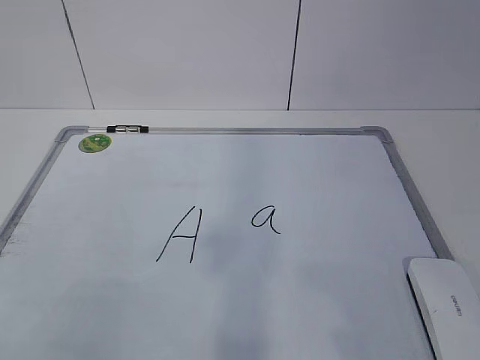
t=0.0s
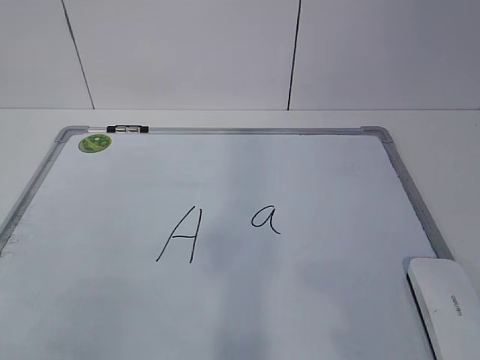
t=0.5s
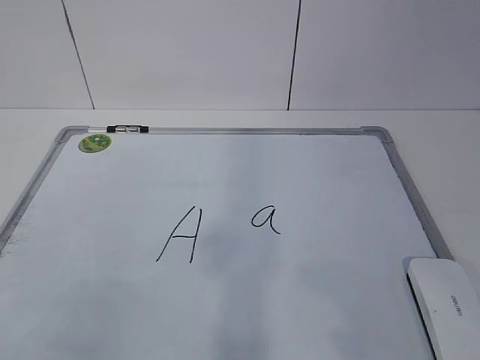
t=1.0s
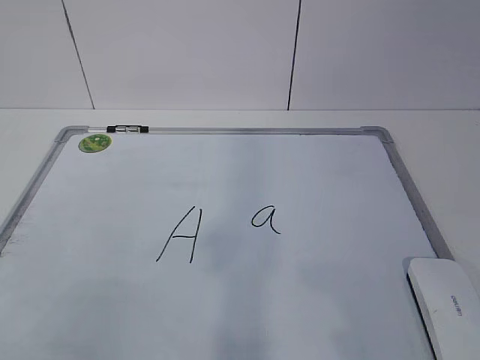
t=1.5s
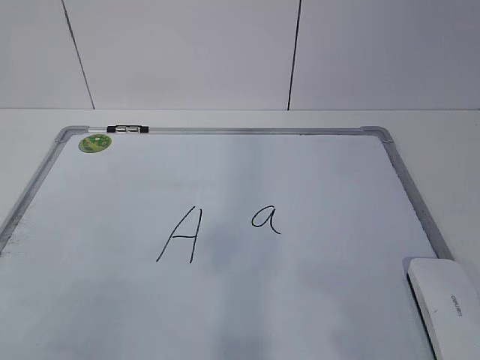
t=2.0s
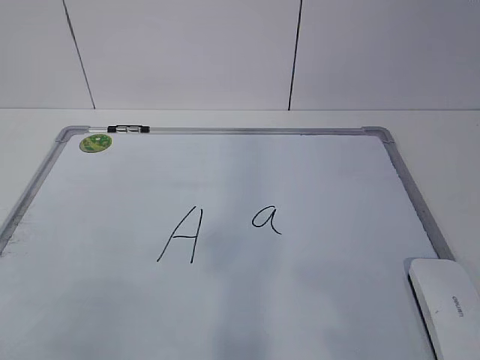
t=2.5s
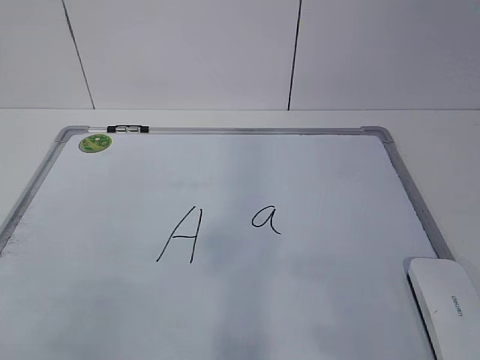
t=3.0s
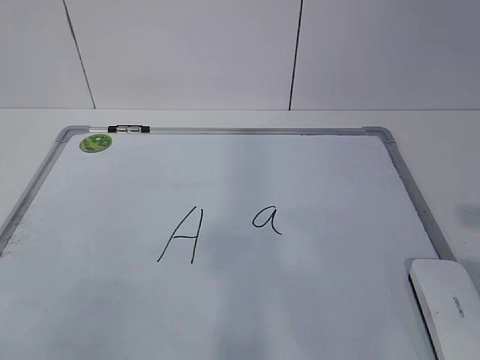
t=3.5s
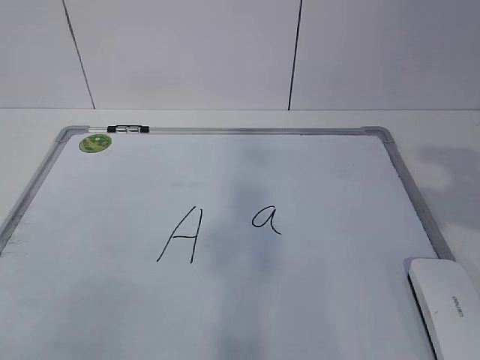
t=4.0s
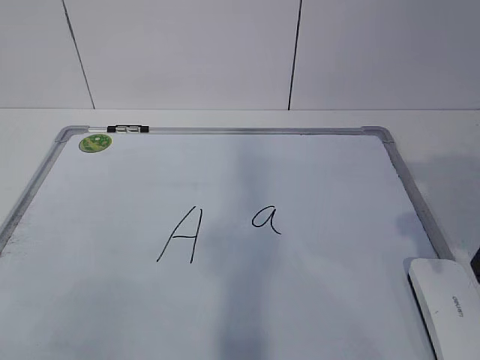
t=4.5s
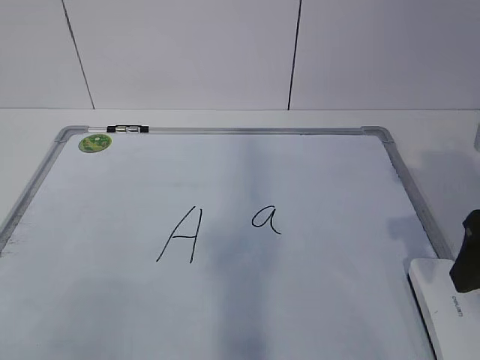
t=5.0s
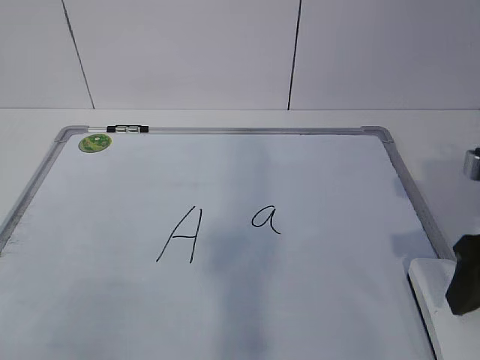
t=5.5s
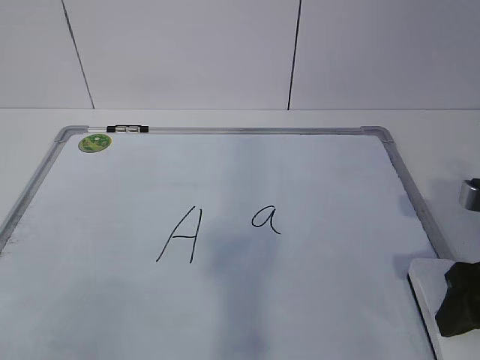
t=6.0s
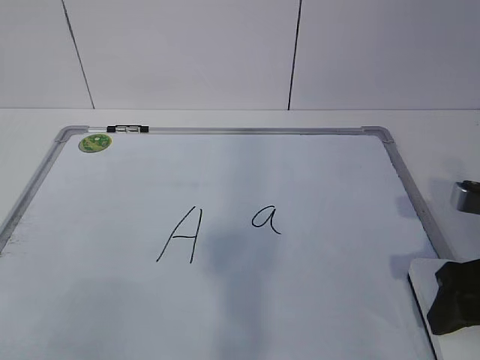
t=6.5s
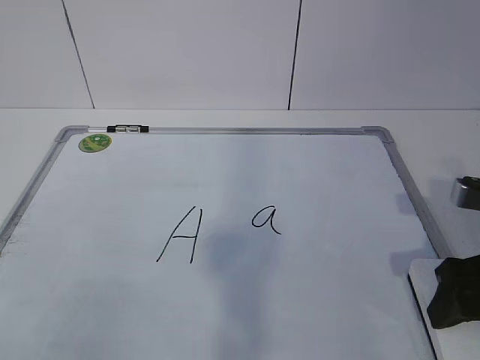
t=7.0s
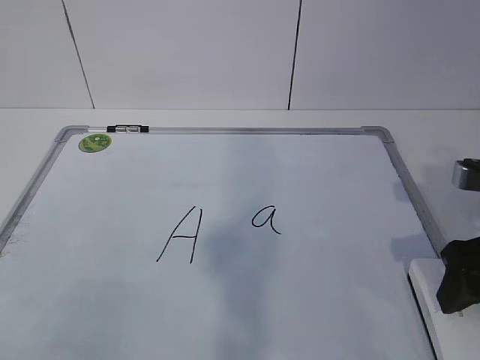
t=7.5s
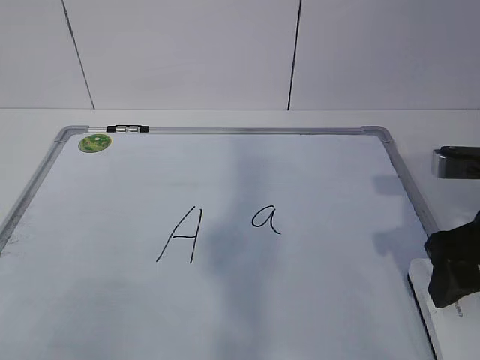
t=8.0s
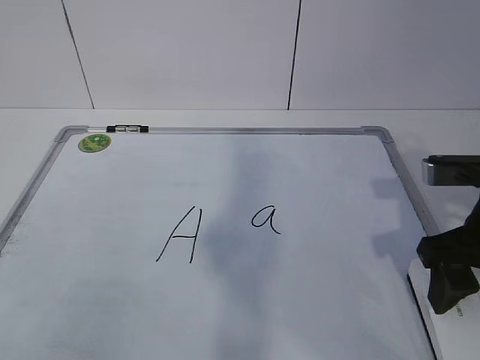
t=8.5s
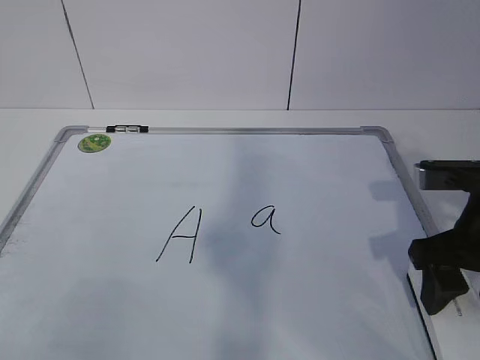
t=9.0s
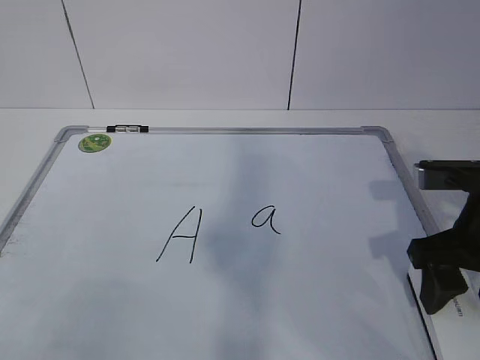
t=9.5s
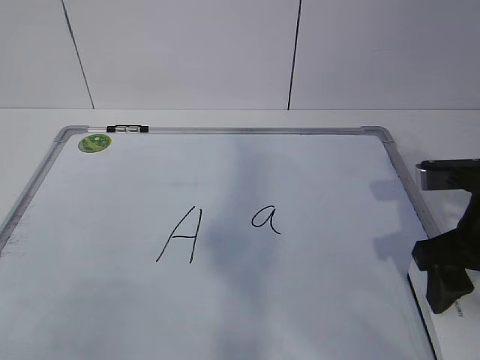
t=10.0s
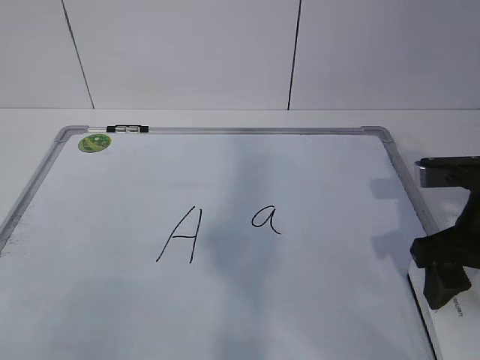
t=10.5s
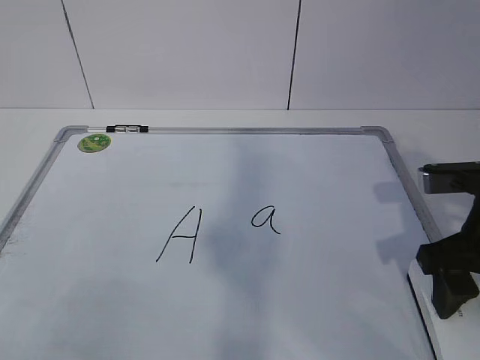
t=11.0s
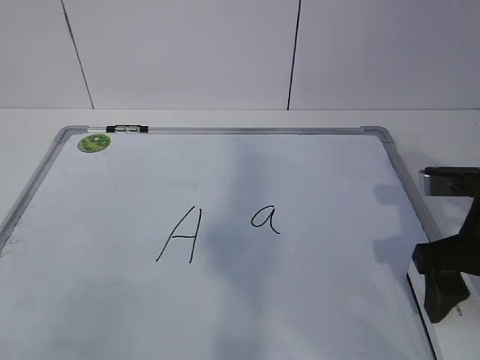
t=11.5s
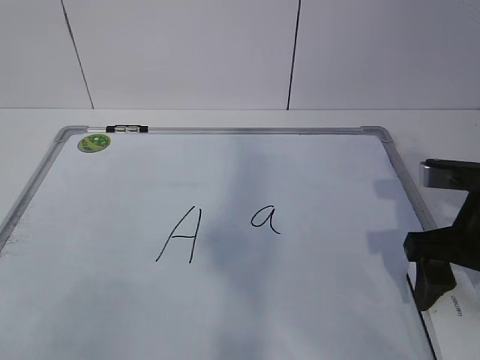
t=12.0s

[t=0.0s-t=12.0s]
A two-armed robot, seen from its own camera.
Task of the whole recording: pick up the eraser on the blackboard and erase the letter "a".
t=4.0s to t=6.0s: The right gripper shifts some 10 cm downward.
t=6.0s to t=10.0s: The grippers stay close to where they were, moving slightly.
t=10.0s to t=12.0s: The right gripper opens up.

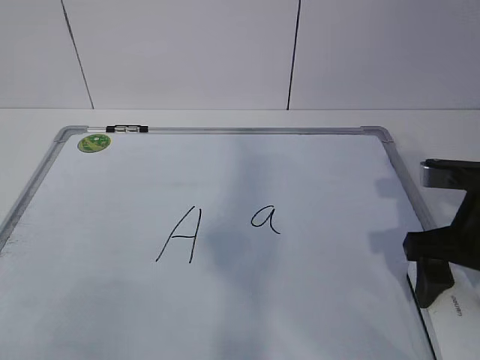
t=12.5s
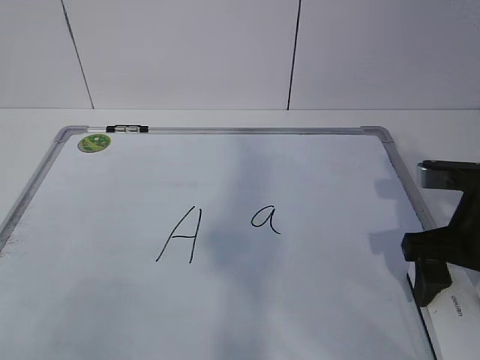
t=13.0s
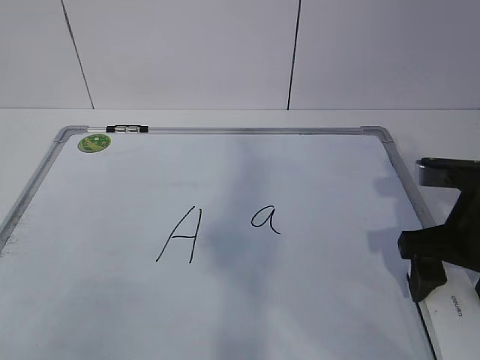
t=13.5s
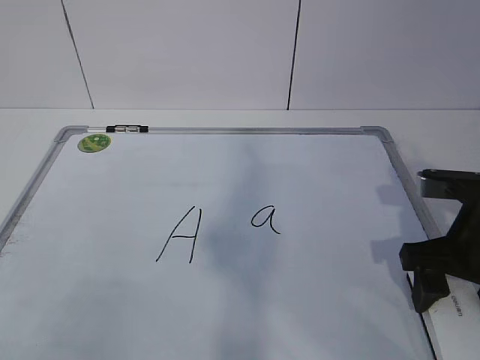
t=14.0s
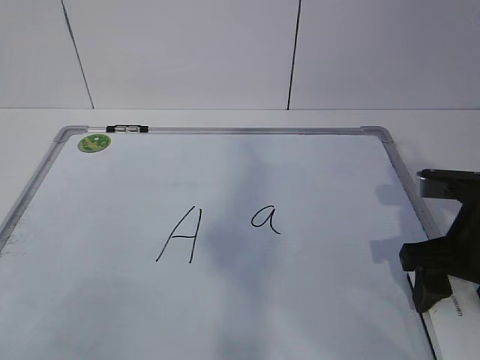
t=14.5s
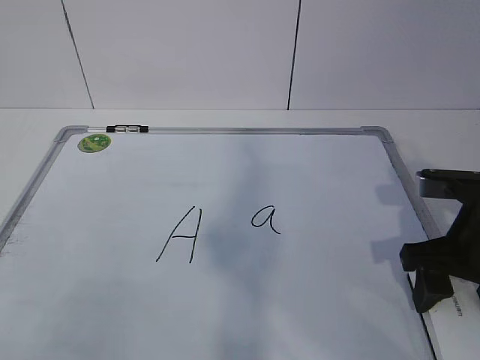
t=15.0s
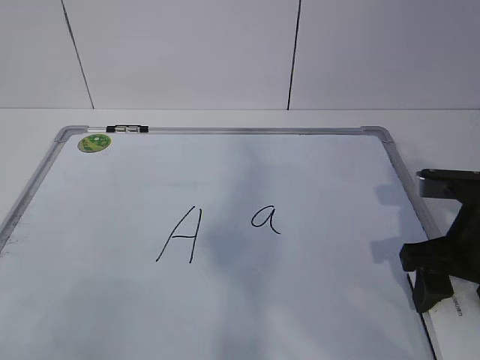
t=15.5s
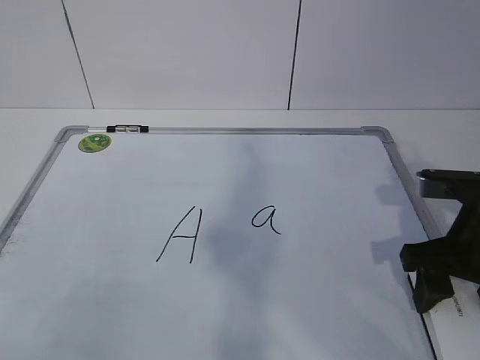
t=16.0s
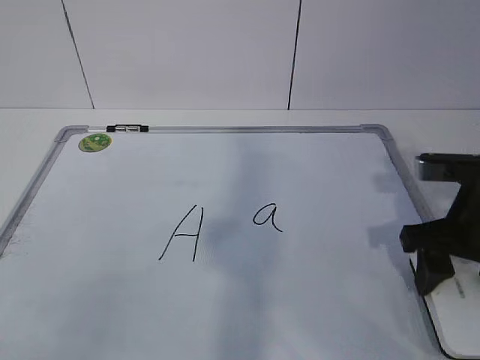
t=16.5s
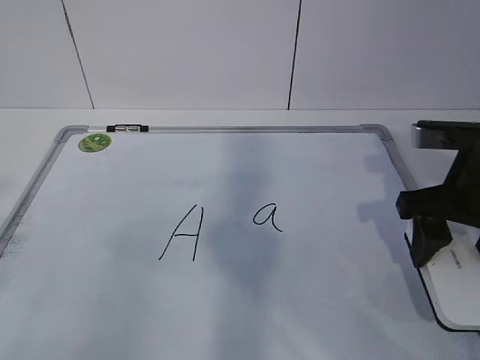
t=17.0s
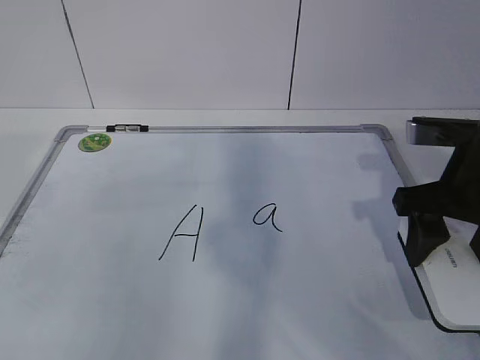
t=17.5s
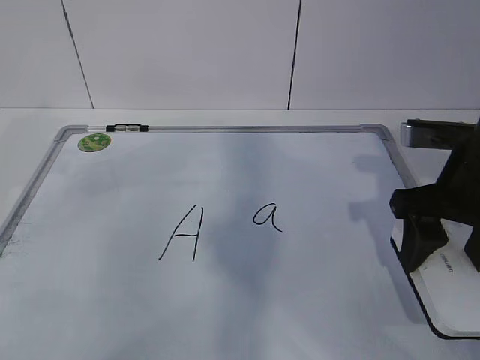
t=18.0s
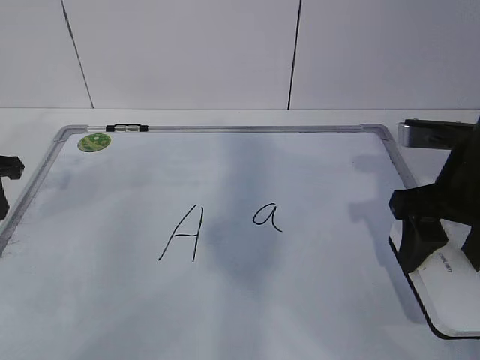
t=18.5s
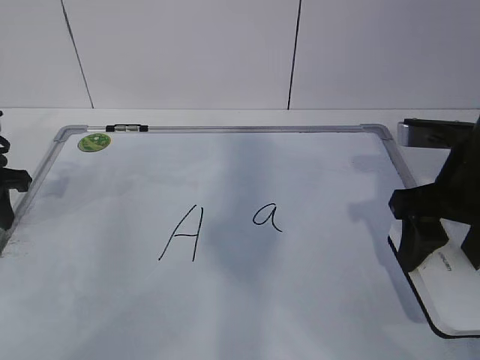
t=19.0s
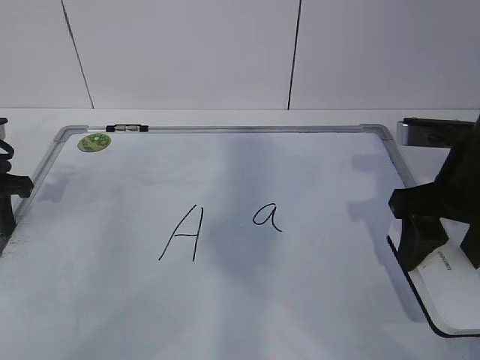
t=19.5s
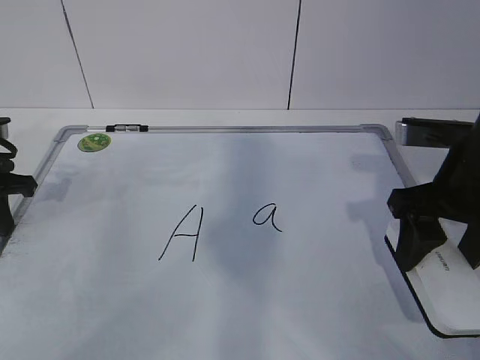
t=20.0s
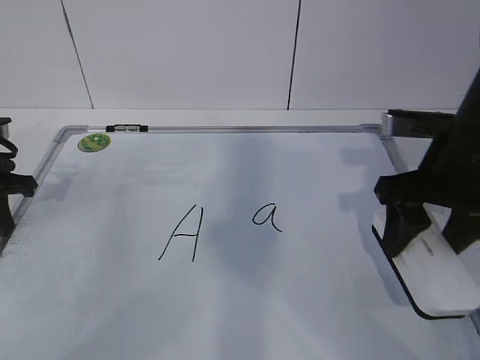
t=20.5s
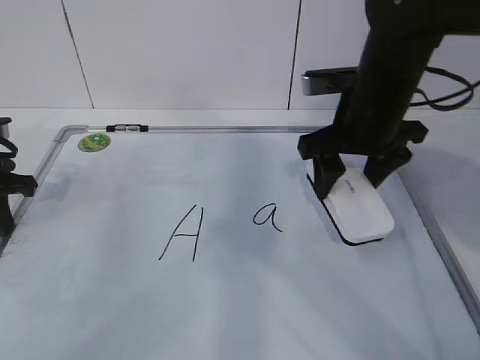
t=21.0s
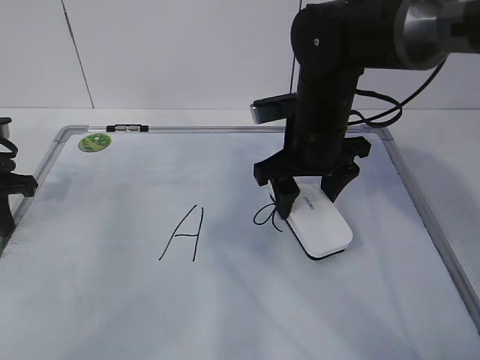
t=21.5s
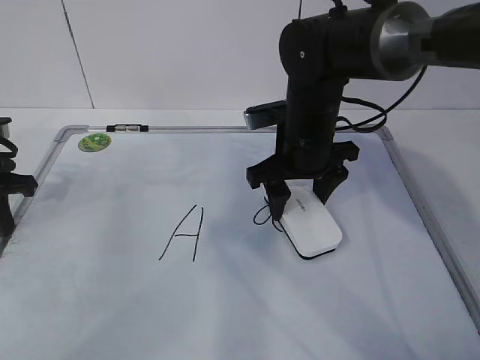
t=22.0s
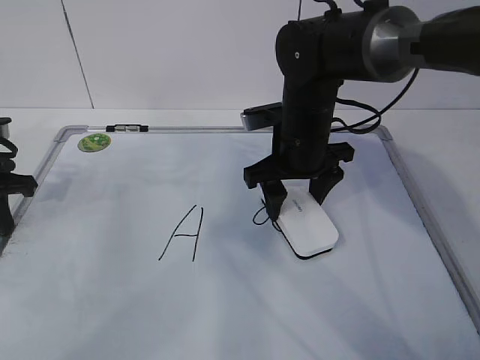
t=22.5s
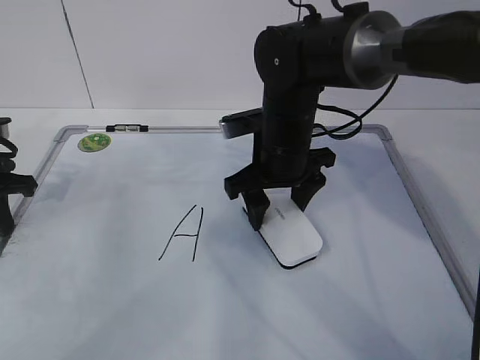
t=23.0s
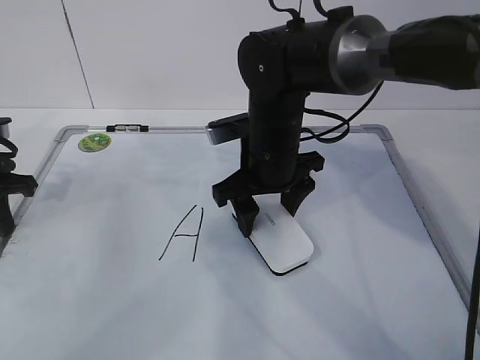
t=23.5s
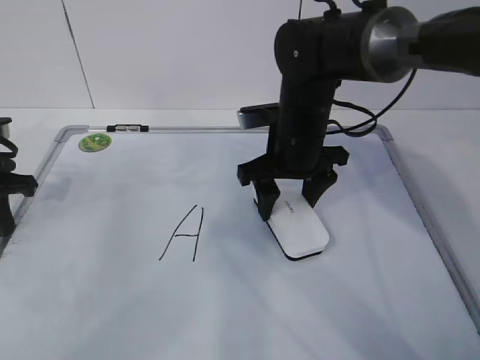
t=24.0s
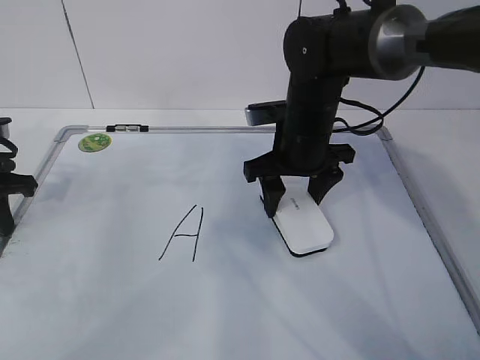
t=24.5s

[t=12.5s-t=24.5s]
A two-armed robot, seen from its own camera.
Task of the whole recording: pick up the eraser on the blackboard and erase the letter "a".
Step, t=14.0s to t=16.5s: Hold the drawing board steady with your left hand.
t=12.5s to t=14.5s: The right gripper closes up.
t=14.5s to t=16.5s: The grippers stay close to where they were, moving slightly.
t=16.5s to t=18.5s: The left gripper is displaced forward by some 30 cm.
t=18.5s to t=20.5s: The left gripper closes its fingers.
t=20.5s to t=22.5s: The right gripper heads to the left, forward and downward, covering roughly 15 cm.
t=22.5s to t=24.5s: The grippers move only a little.

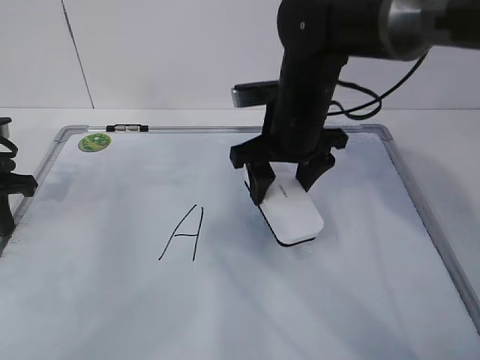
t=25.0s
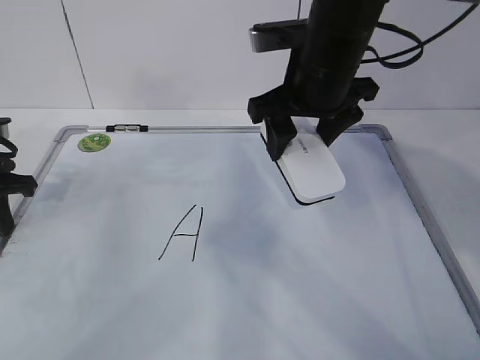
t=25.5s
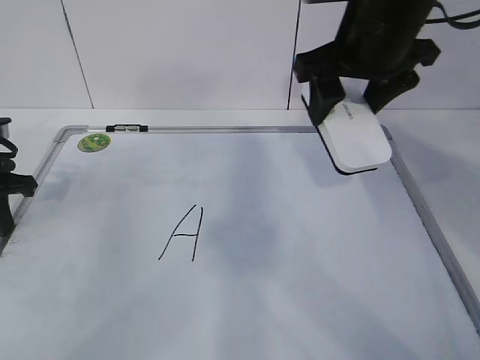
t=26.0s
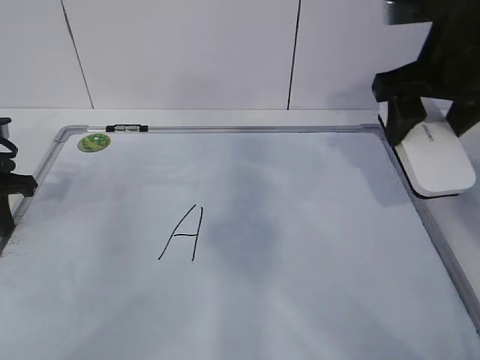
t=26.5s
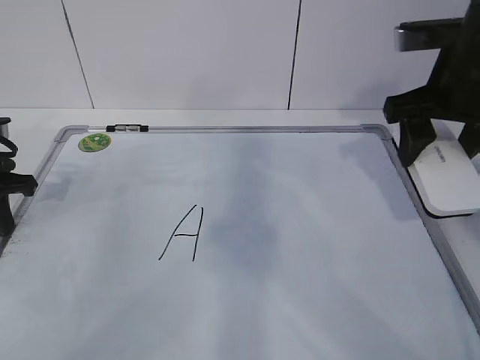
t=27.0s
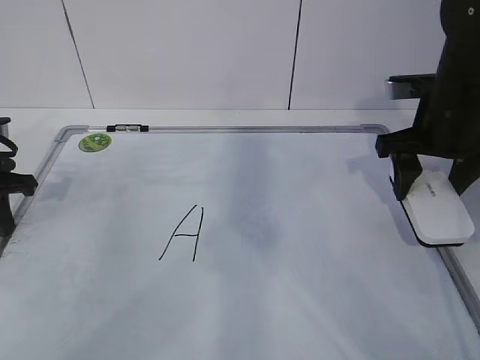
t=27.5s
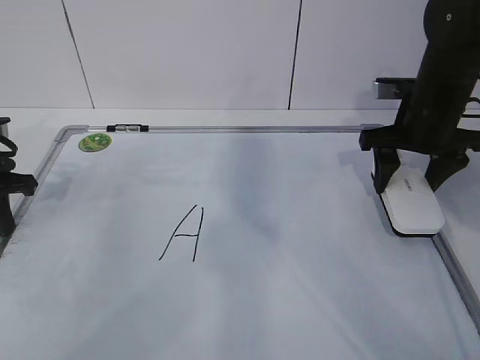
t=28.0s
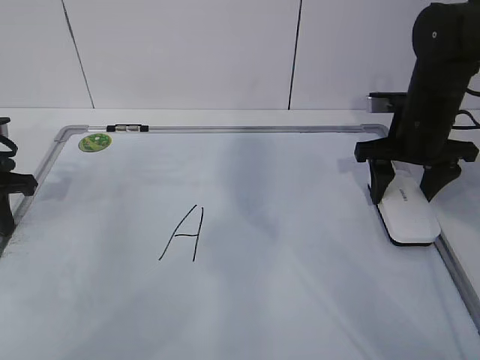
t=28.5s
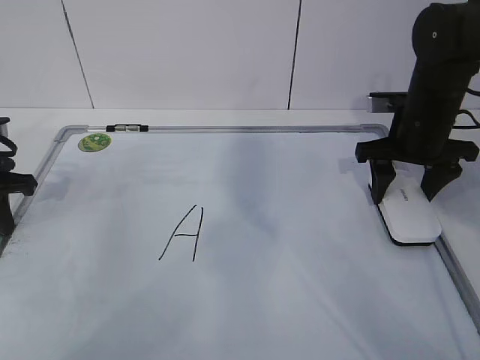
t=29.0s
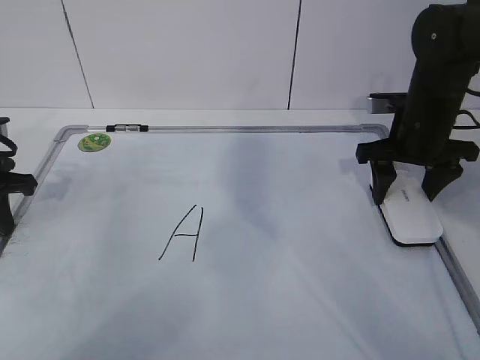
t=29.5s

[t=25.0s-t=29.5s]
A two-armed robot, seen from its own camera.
Task of the whole recording: pick up the eraser on the blackboard and erase the letter "a".
t=25.0s to t=27.0s: The right gripper travels to the right and upward by some 15 cm.
t=27.0s to t=29.5s: The right gripper is displaced downward and forward by approximately 10 cm.
